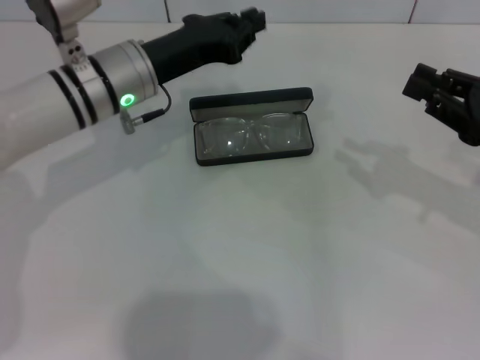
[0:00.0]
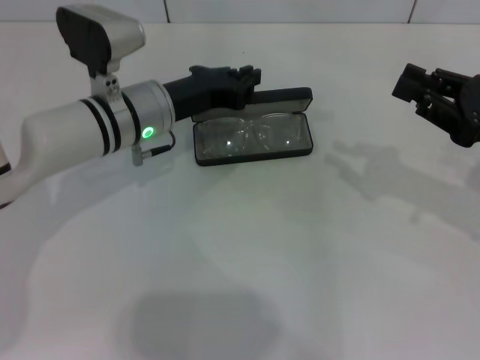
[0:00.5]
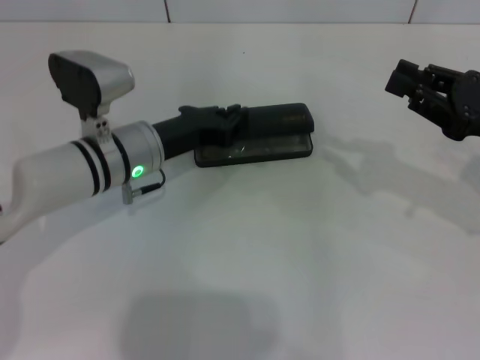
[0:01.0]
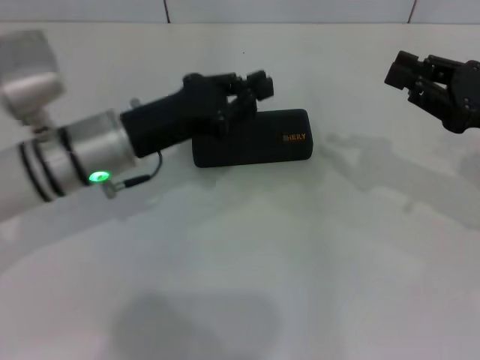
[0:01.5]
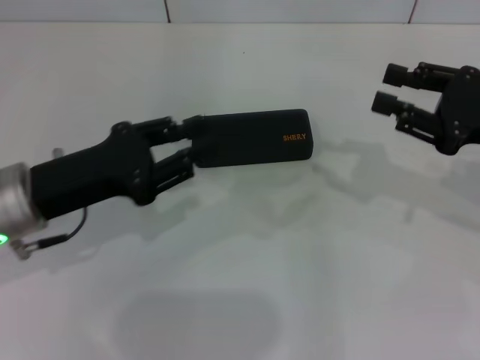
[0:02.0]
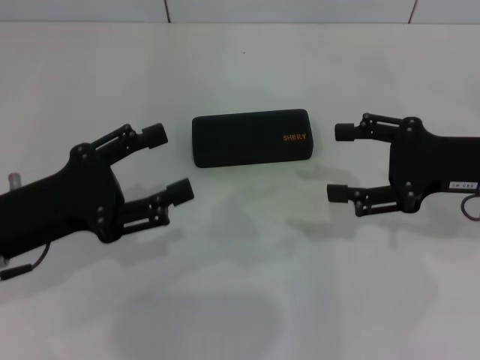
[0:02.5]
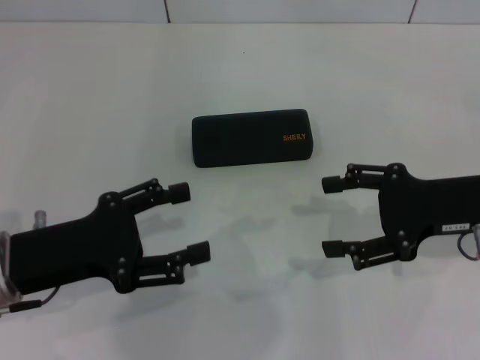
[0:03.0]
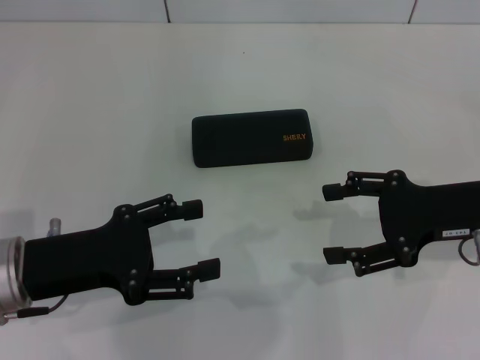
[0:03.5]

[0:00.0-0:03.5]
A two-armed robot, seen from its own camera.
0:00.0 to 0:02.0: The left gripper heads backward and to the left, covering roughly 15 cm.
0:02.0 to 0:03.5: The left gripper ends up roughly 5 cm from where it was, and opens its fingers; the right gripper opens up.

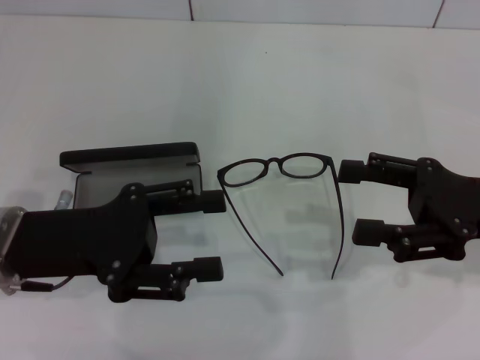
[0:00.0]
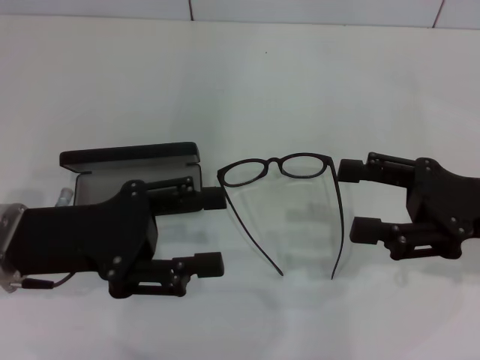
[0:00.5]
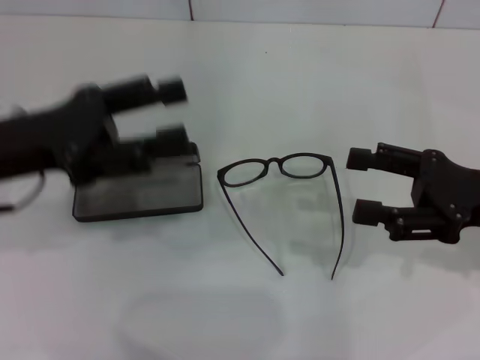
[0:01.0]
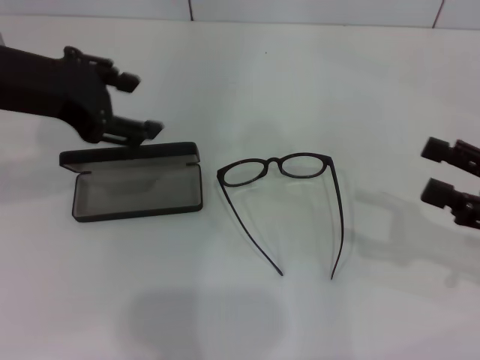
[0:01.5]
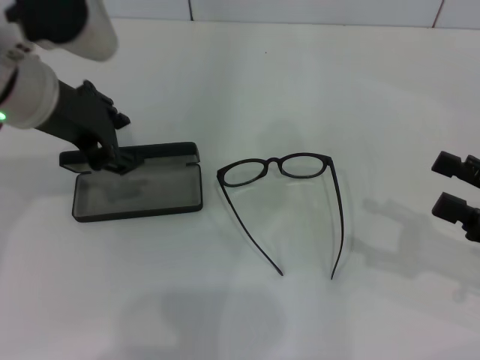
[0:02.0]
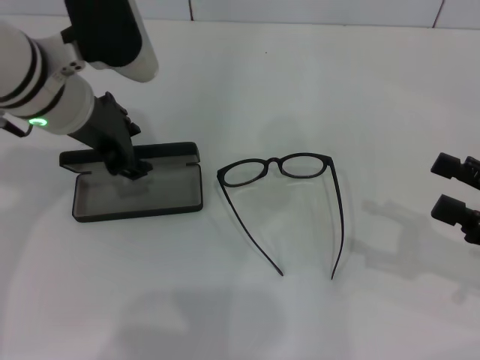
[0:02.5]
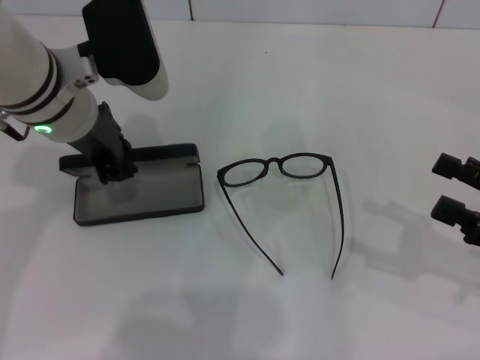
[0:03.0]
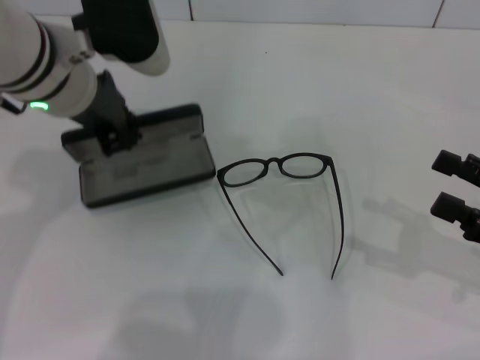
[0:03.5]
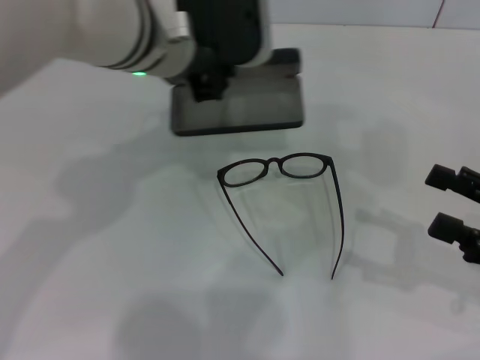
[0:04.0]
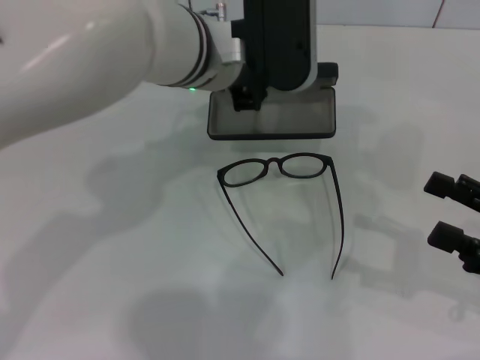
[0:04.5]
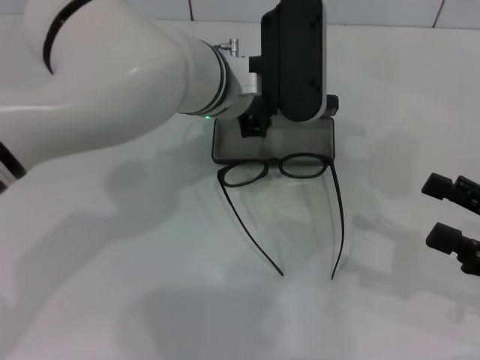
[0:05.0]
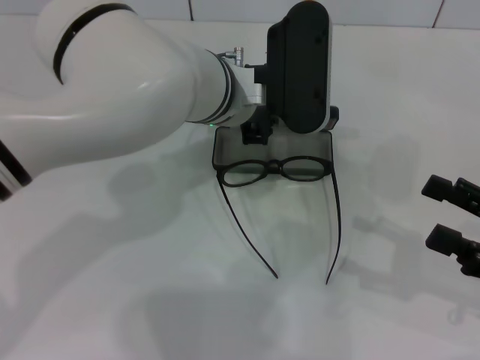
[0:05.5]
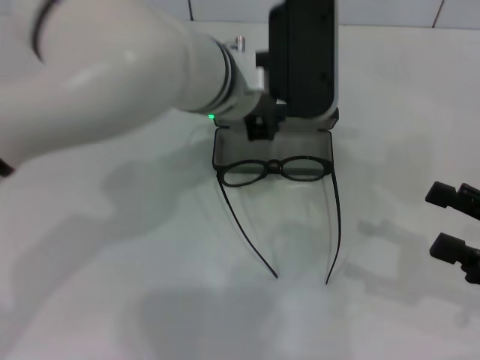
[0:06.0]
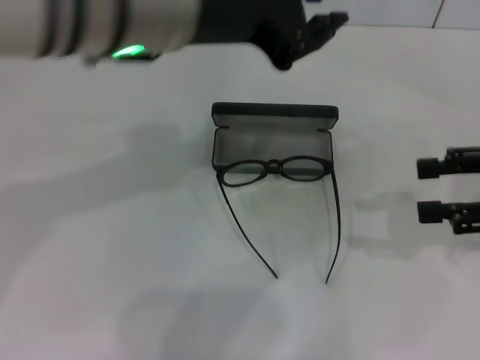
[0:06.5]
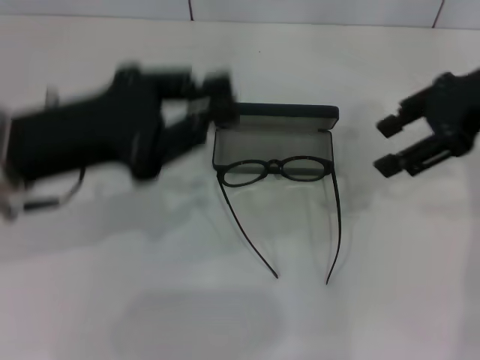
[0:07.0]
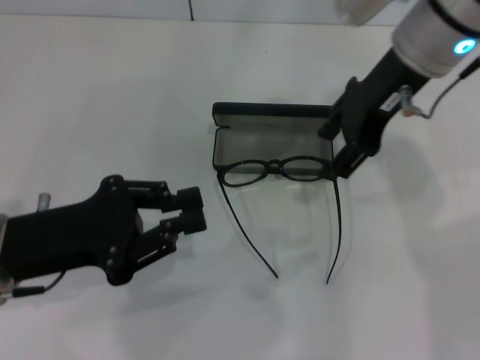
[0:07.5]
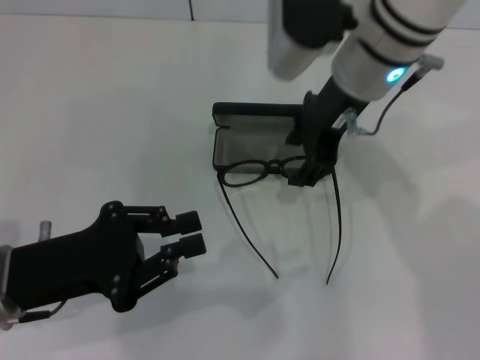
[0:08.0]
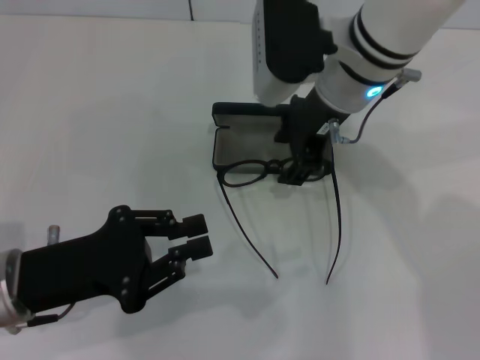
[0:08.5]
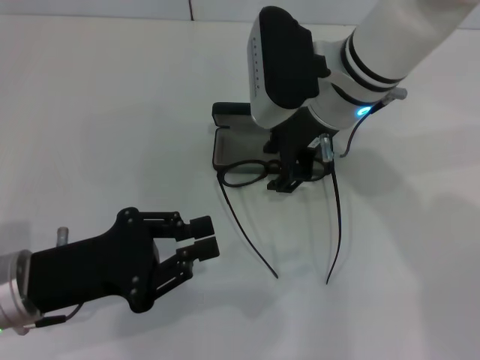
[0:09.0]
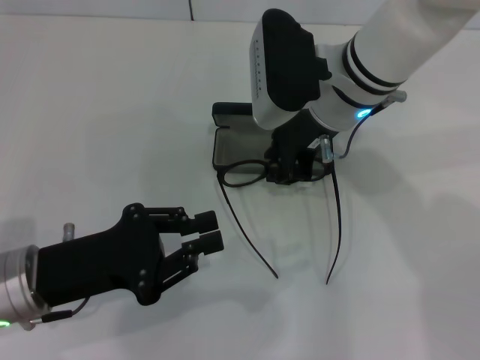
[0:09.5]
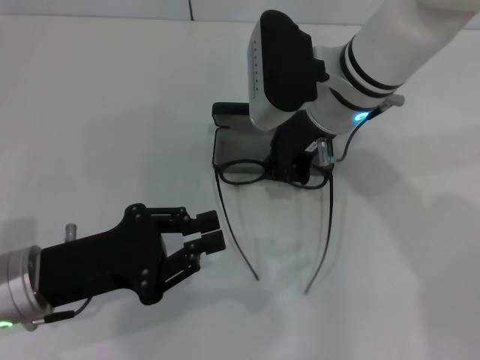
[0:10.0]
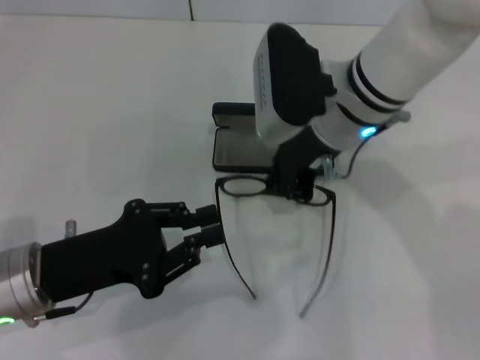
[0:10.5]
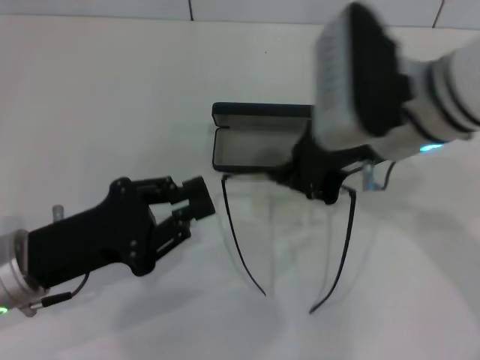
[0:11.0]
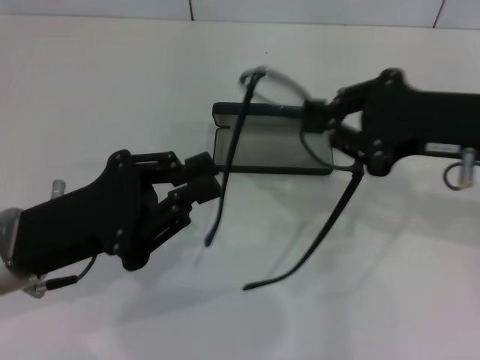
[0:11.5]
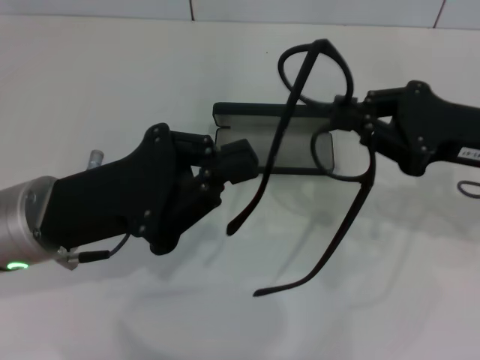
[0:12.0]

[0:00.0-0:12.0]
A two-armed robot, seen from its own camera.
Step, 0:00.0 to 0:03.0: Grab the glasses case with your left hand.
Step, 0:03.5 to 0:05.5: Place the glasses case in the center of the table with your left hand.
Step, 0:06.0 to 0:10.0: Grab the eyeglass frame with your right hand.
0:00.0 to 0:02.0: The left gripper heads upward and forward, covering about 15 cm. Meanwhile the right gripper heads to the right, covering approximately 5 cm.
0:02.0 to 0:04.0: The left gripper goes approximately 10 cm to the right, and closes its fingers.
0:04.0 to 0:06.0: The left gripper heads to the right, covering about 5 cm.
0:06.0 to 0:08.0: The left gripper goes approximately 25 cm to the left, backward and downward; the right gripper shifts some 35 cm to the left, forward and upward.
0:08.0 to 0:10.0: The right gripper shifts by some 5 cm, and closes.
0:10.0 to 0:12.0: The left gripper travels upward by roughly 5 cm. Meanwhile the right gripper shifts about 20 cm to the right and backward.

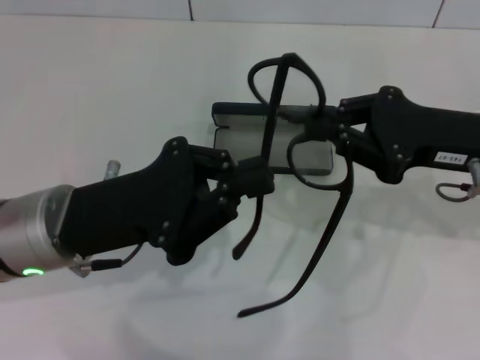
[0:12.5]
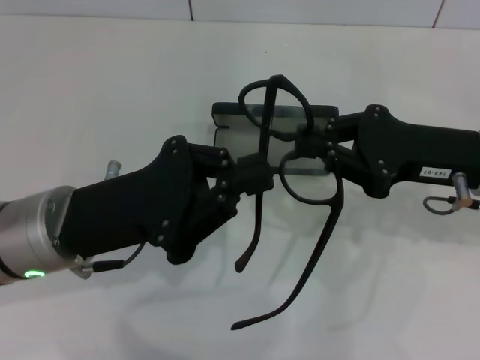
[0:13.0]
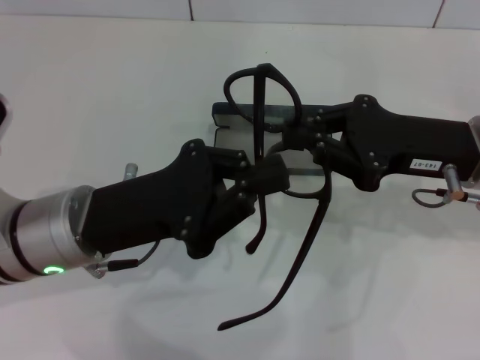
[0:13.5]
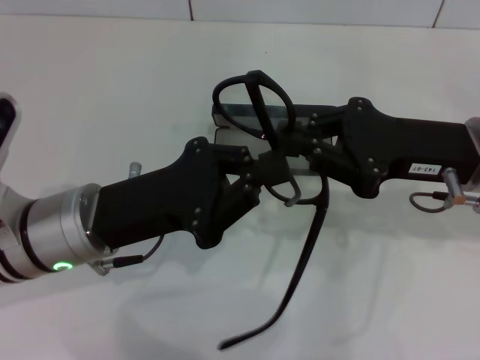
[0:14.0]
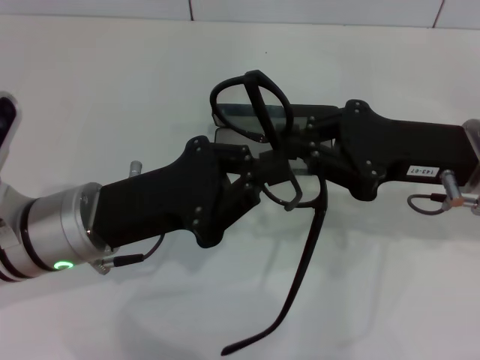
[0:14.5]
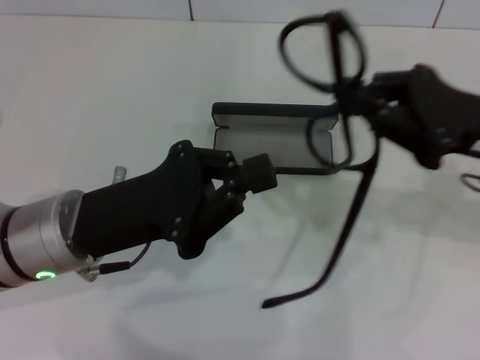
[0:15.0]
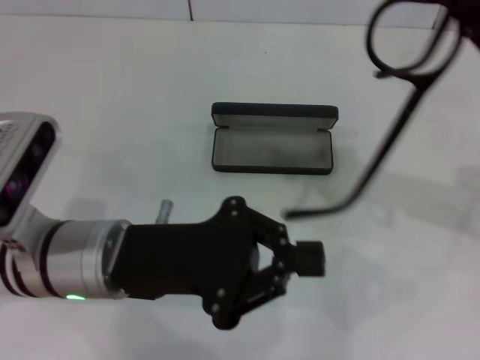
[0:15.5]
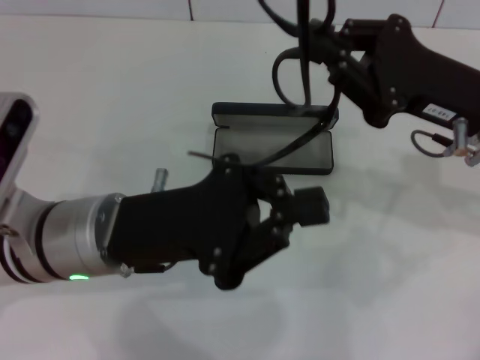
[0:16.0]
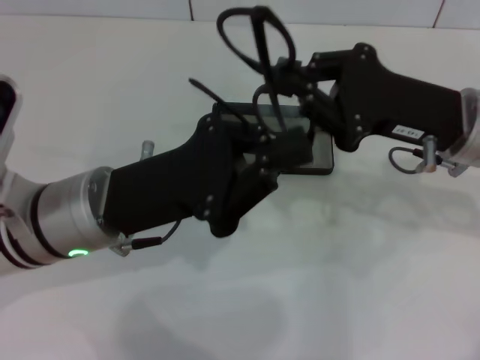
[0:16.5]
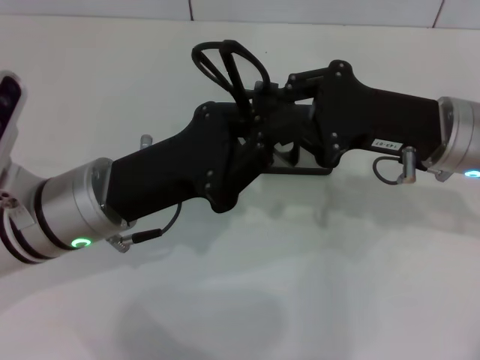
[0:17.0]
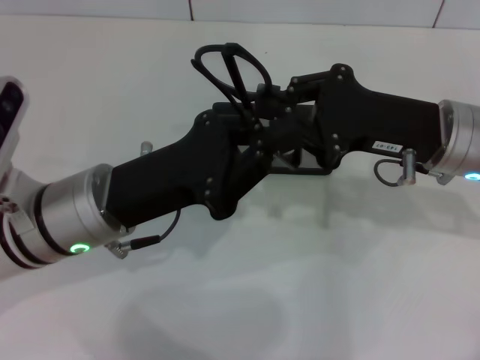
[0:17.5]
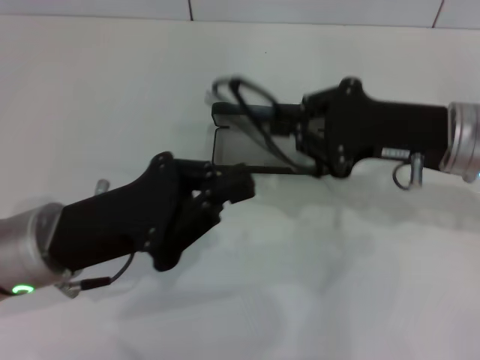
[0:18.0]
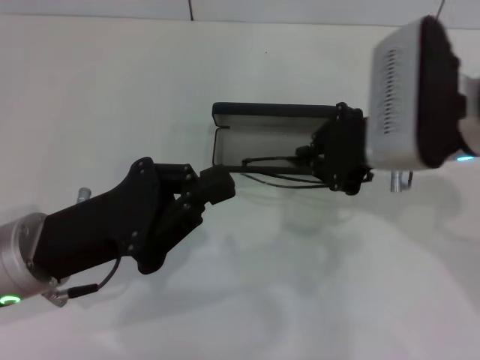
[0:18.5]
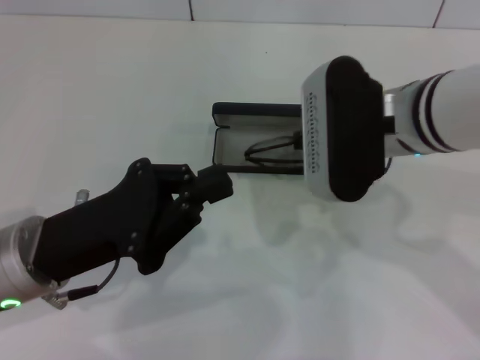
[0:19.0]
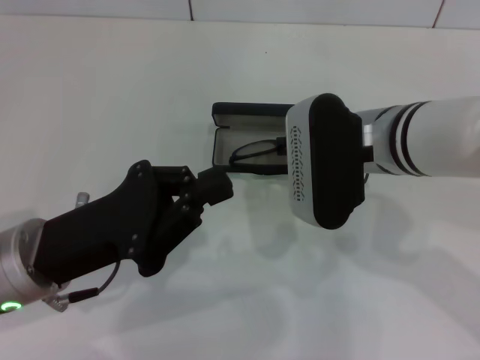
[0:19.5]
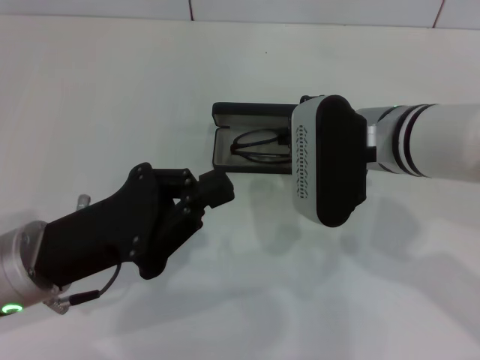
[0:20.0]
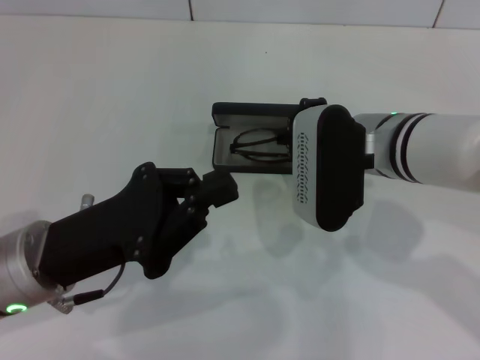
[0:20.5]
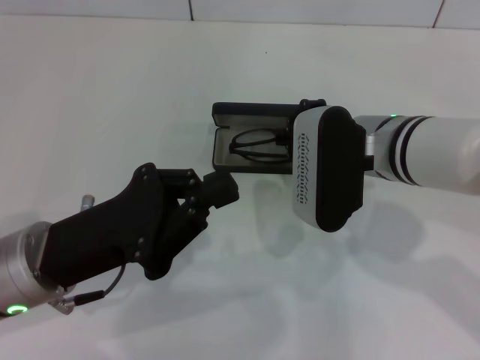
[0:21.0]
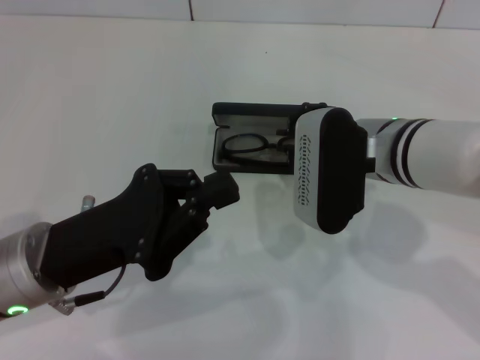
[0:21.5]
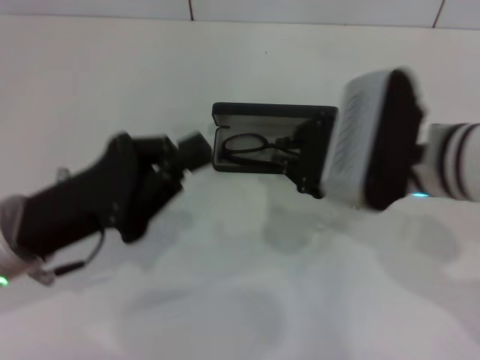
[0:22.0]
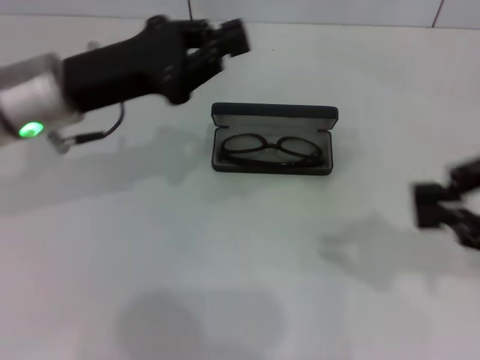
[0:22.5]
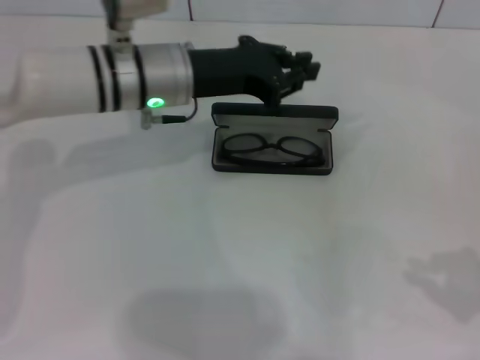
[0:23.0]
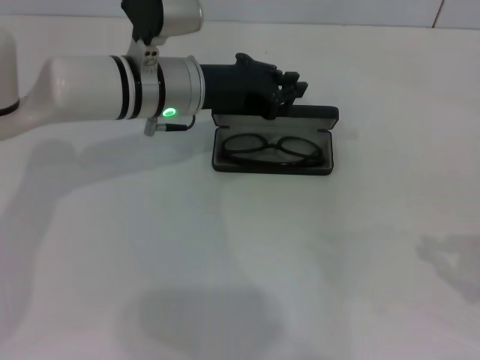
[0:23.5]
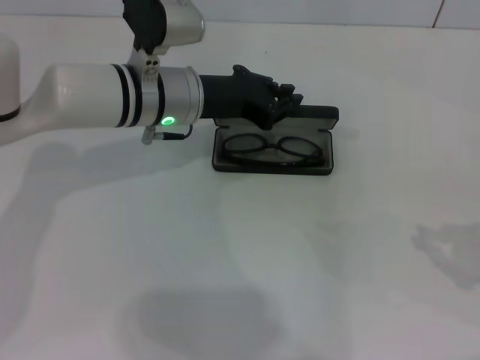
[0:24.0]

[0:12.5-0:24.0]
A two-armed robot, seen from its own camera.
Step, 0:12.5 to 0:17.0: Lift the glasses with your right hand.
Step, 0:18.0 to 0:21.0: Put the glasses into the case with your right hand.
0:12.5 to 0:14.5: There are only small adjustments of the grippers.
0:16.5 to 0:18.5: The right gripper shifts by some 5 cm. Meanwhile the left gripper travels to the left by some 5 cm.
0:18.5 to 0:20.0: The right gripper shifts by some 5 cm.
0:22.0 to 0:24.0: The left gripper is displaced forward and to the right by approximately 20 cm. Meanwhile the right gripper heads to the right, covering some 25 cm.
